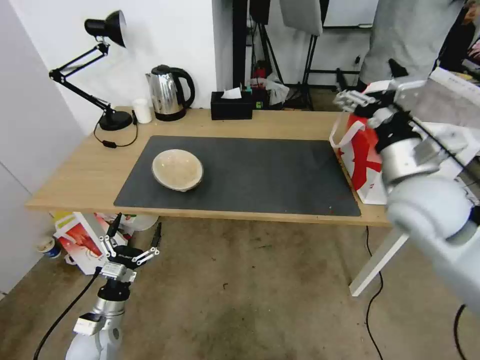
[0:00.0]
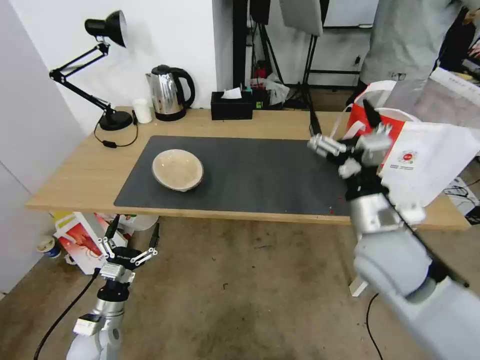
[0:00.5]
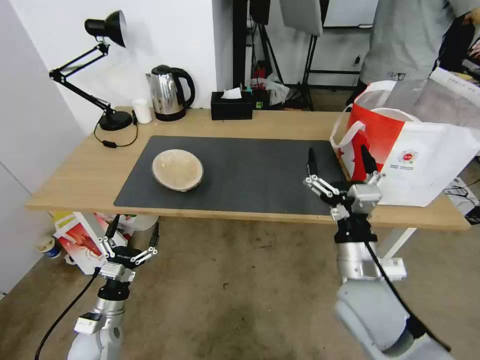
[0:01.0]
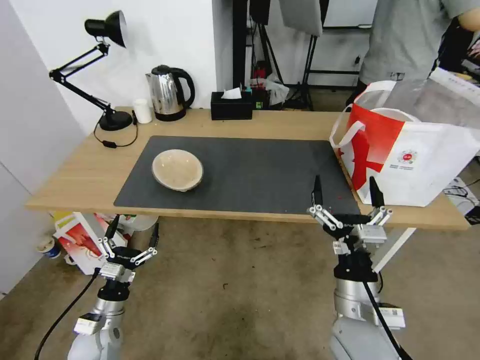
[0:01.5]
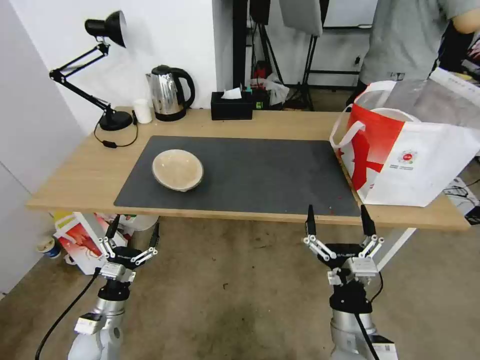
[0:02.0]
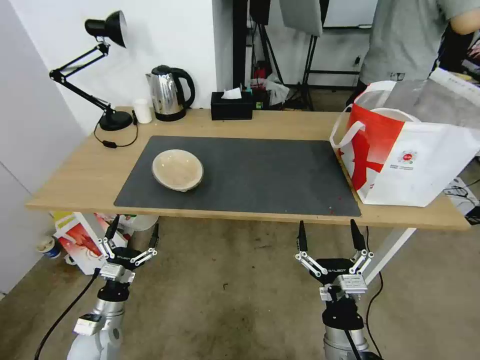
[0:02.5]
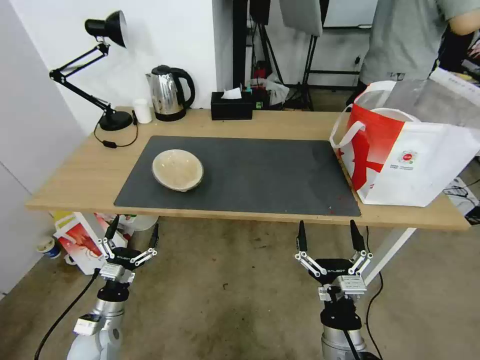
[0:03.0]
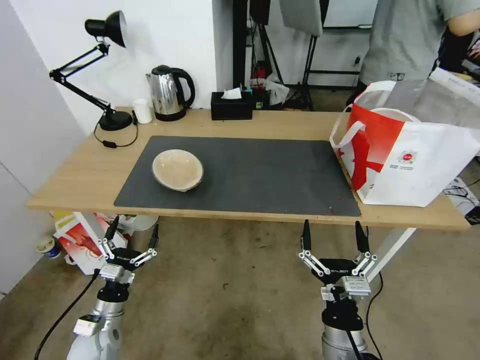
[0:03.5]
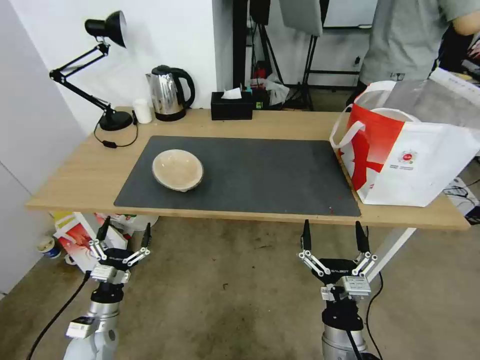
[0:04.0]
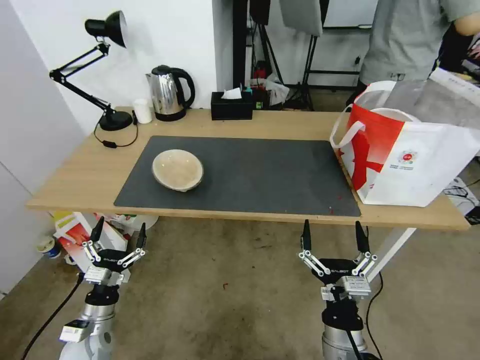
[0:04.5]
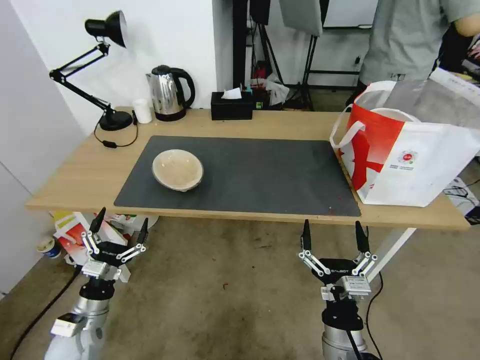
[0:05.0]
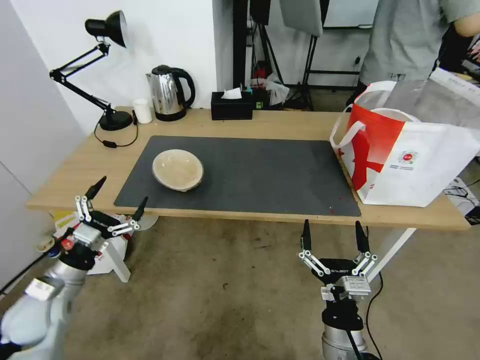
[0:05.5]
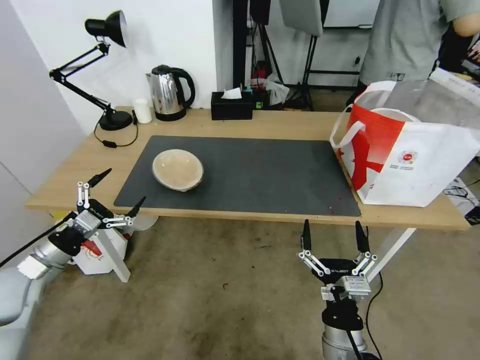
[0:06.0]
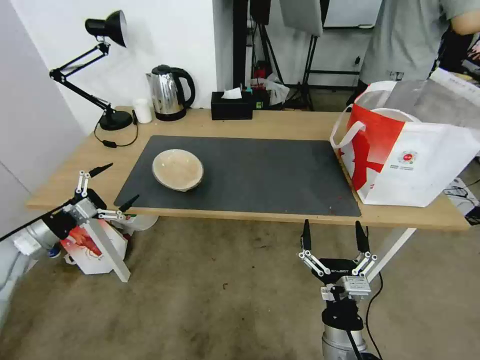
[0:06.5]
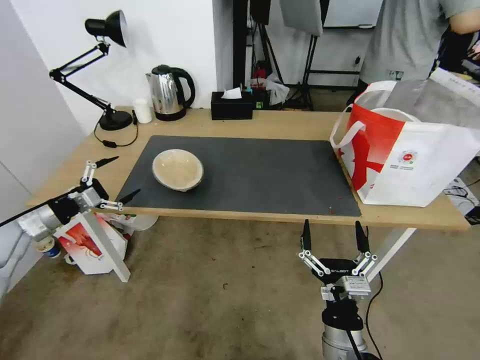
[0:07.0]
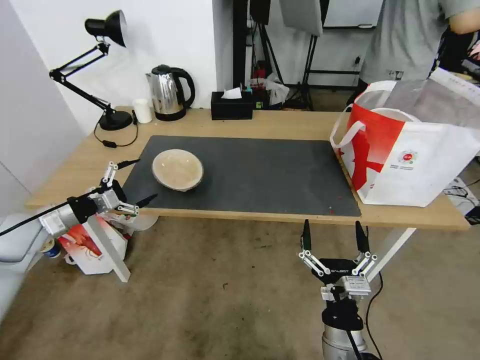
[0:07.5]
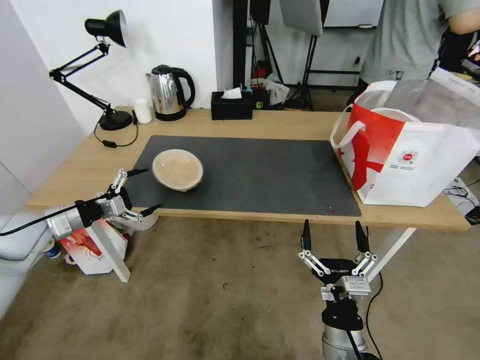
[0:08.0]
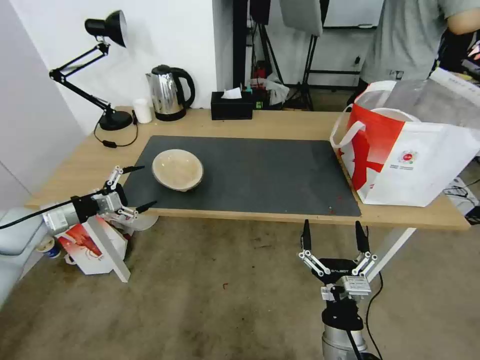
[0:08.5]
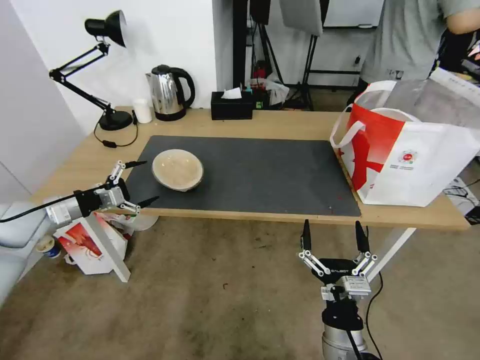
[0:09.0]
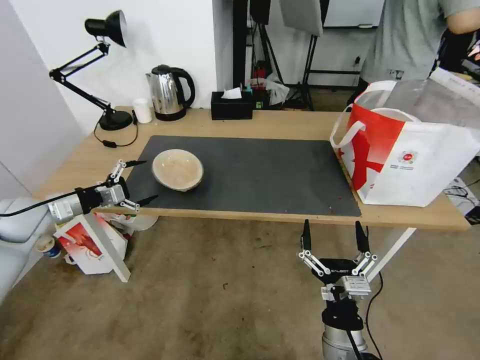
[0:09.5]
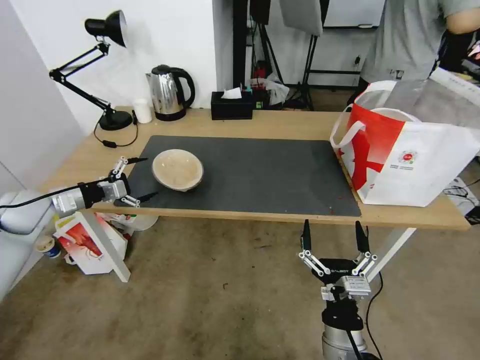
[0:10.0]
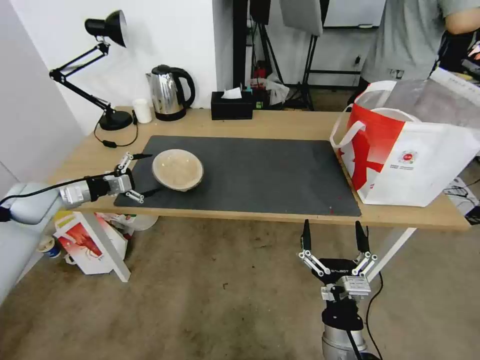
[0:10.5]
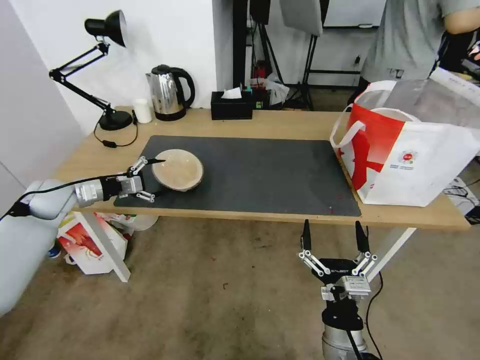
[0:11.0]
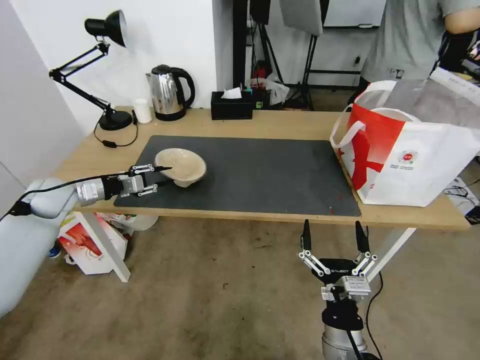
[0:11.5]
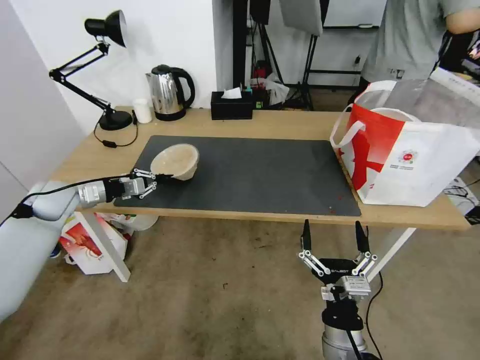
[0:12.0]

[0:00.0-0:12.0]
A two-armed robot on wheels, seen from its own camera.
Task of the whole recording: Pick up the trash from the table and place it into the takeout bag.
0:00.0 to 0:02.0: The right gripper moves downward, backward and to the left, roughly 35 cm.
0:02.0 to 0:04.0: The grippers stay close to where they were, moving slightly.
0:04.0 to 0:06.0: The left gripper is displaced upward and to the left by approximately 20 cm.
0:06.0 to 0:08.0: The left gripper travels forward by roughly 10 cm.
0:08.0 to 0:10.0: The left gripper shifts about 5 cm forward.
0:10.0 to 0:12.0: The left gripper moves about 5 cm, and closes its fingers.

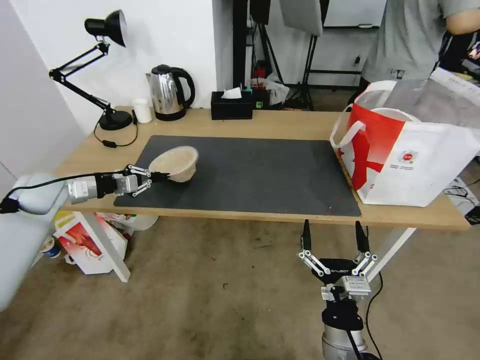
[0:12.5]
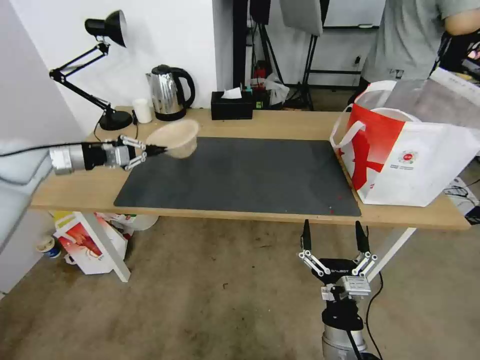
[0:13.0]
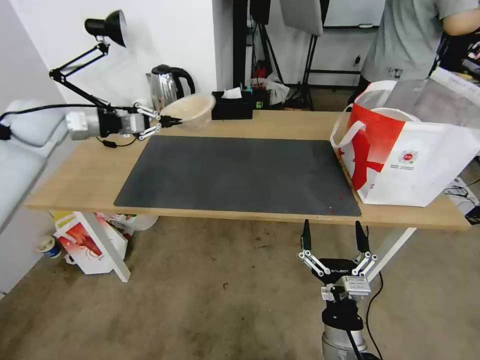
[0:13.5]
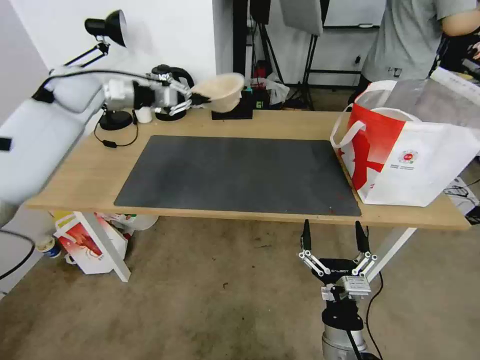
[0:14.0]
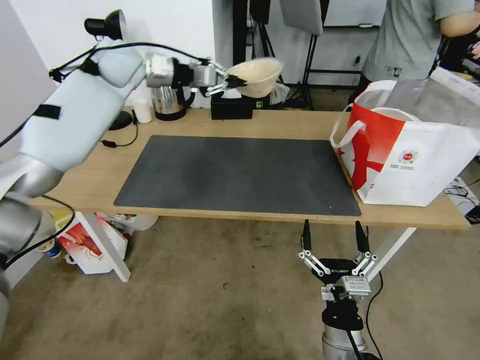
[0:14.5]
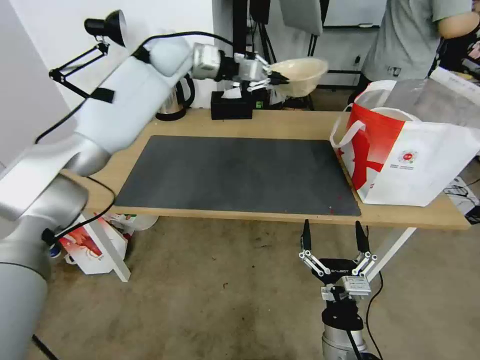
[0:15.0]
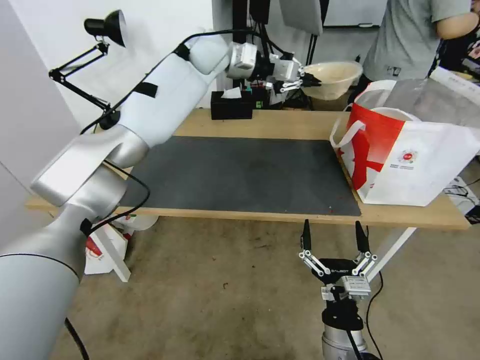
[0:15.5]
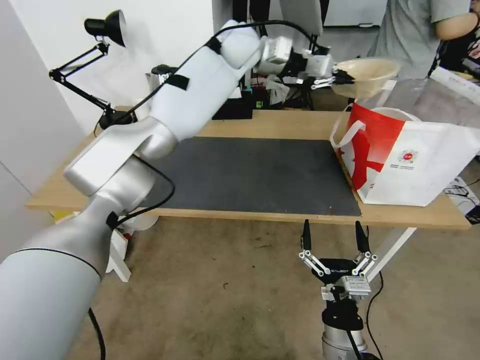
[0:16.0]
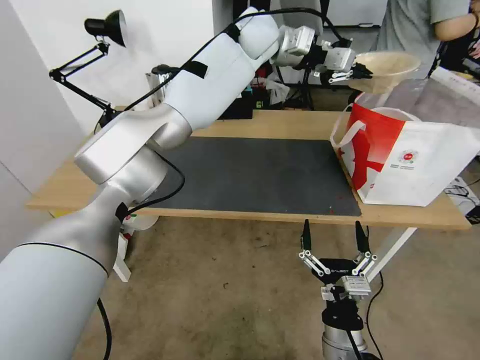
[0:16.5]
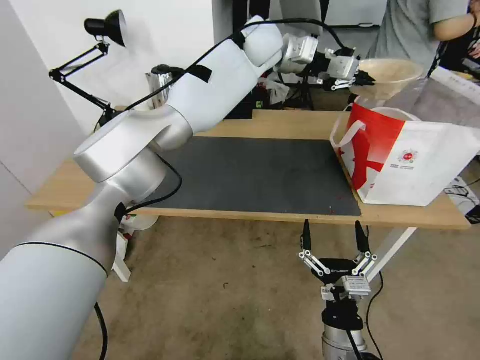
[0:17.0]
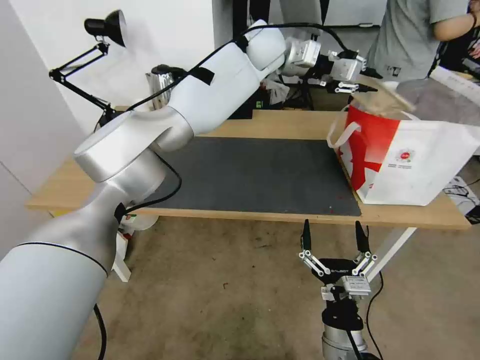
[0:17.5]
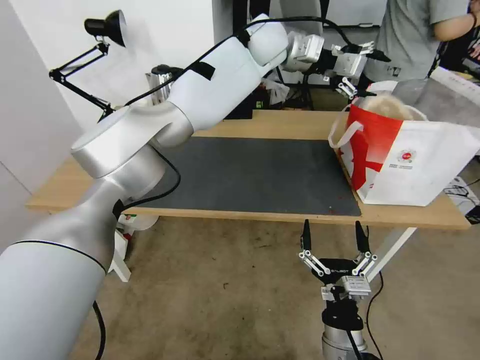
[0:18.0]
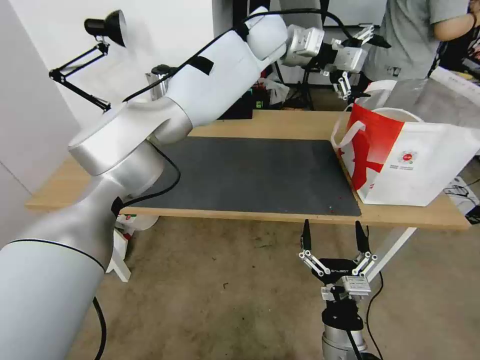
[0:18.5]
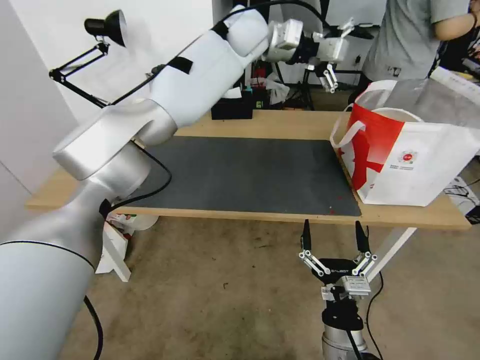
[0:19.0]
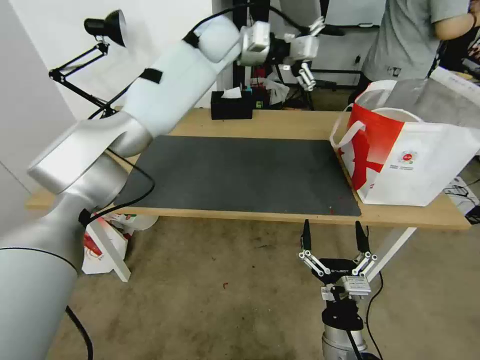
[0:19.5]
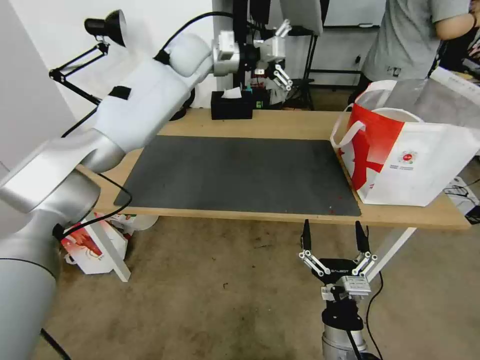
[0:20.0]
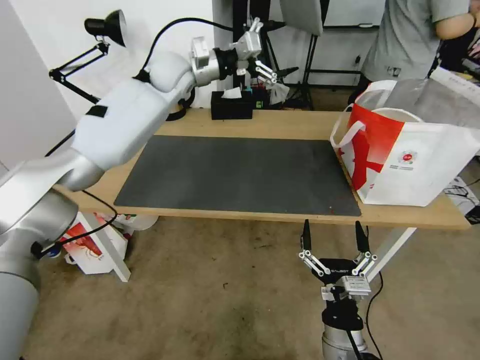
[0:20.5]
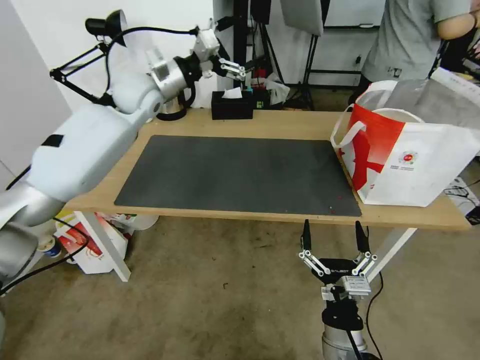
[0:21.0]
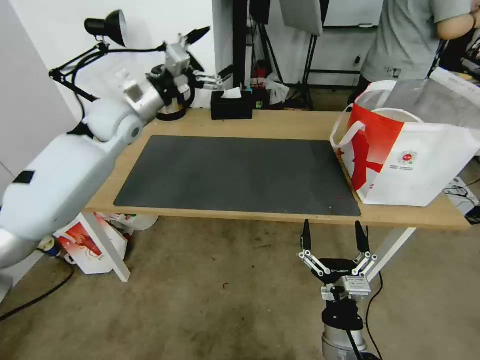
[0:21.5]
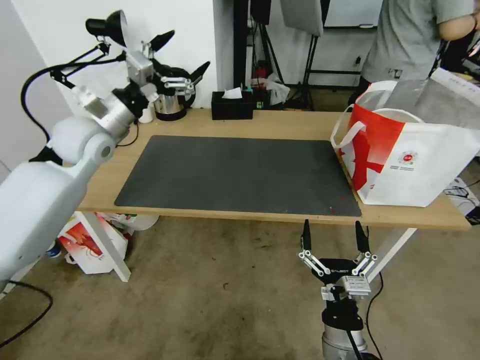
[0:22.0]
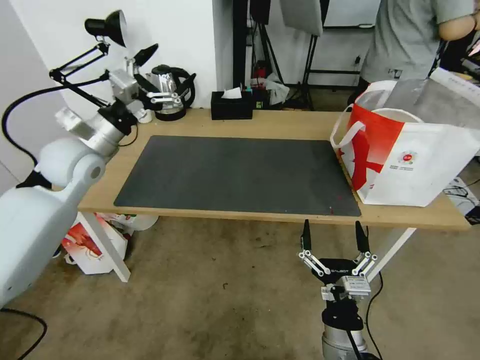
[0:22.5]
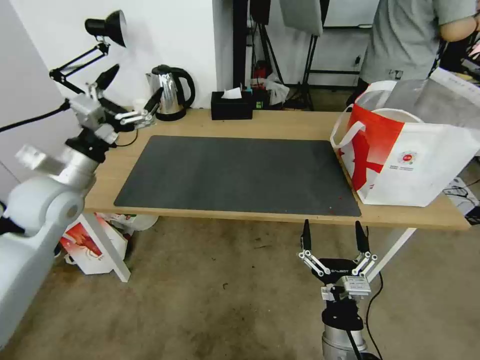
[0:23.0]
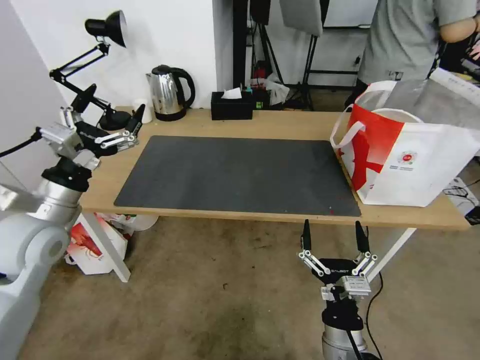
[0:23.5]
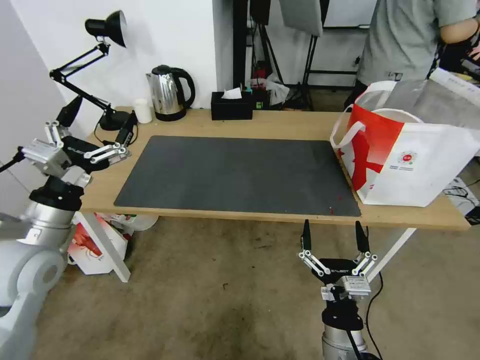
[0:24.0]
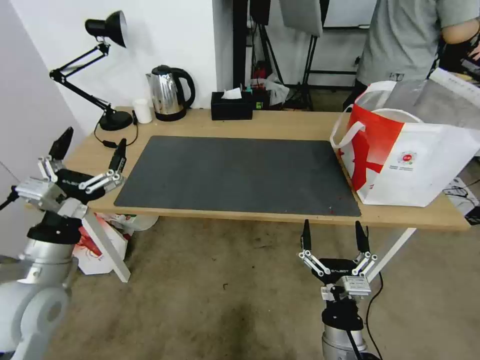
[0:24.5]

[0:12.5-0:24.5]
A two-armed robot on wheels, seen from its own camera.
Task of the whole recording: Pick up the trash from the table and place it into the takeout bag.
0:12.5 to 0:14.5: The left gripper heads upward, to the right and forward, covering roughly 35 cm.
0:14.5 to 0:16.5: The left gripper moves to the right, about 30 cm.
0:16.5 to 0:18.5: The left gripper opens up.
0:18.5 to 0:20.5: The left gripper shifts some 20 cm to the left.
0:20.5 to 0:22.5: The left gripper shifts some 25 cm backward, to the left and downward.
0:22.5 to 0:24.5: The left gripper is displaced backward and downward by approximately 25 cm.

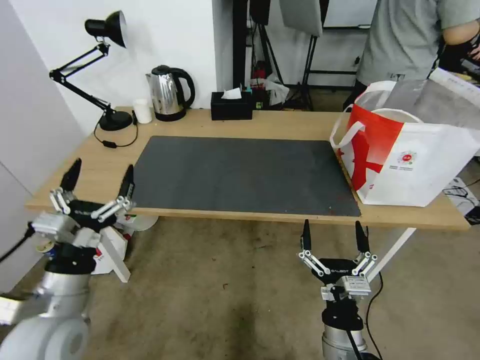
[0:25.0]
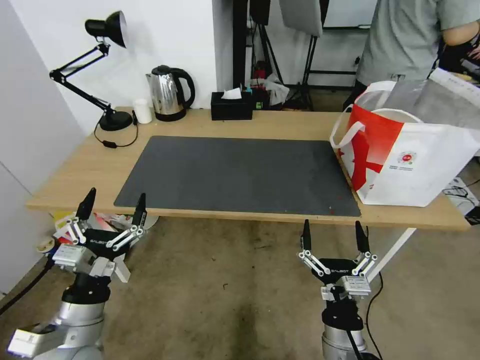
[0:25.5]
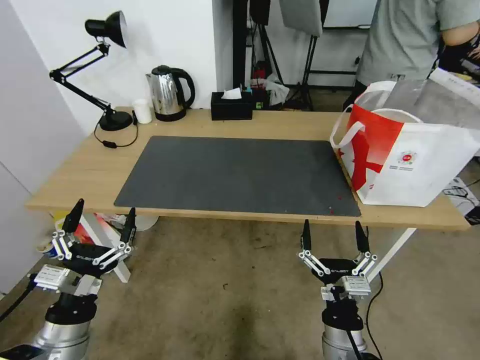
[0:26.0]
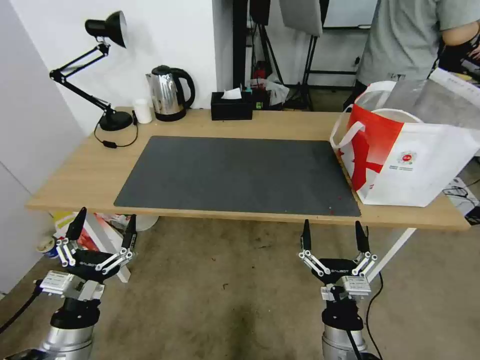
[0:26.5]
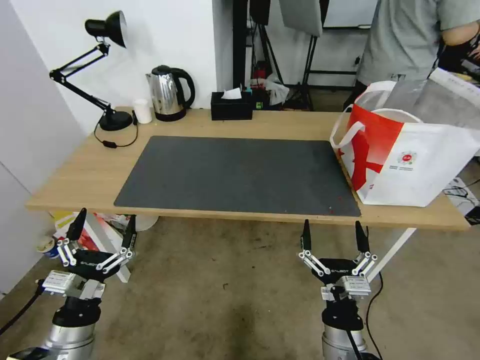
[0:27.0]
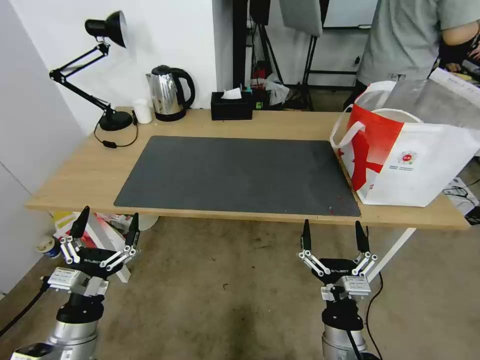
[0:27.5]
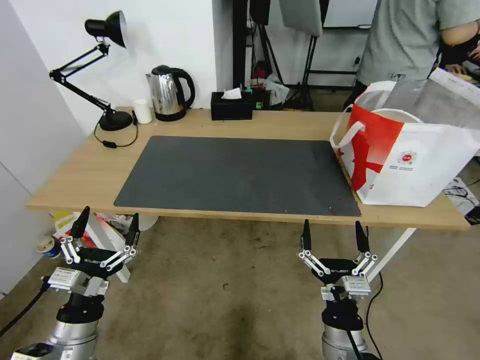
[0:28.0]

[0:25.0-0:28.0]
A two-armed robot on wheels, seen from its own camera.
Task of the whole recording: Pick up the trash from the table and place it into the takeout bag.
0:25.0 to 0:26.5: The left gripper heads downward and backward, covering some 10 cm.
0:26.5 to 0:28.0: Both grippers stay put.
